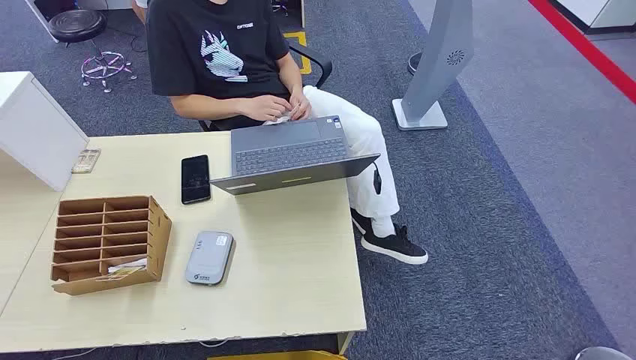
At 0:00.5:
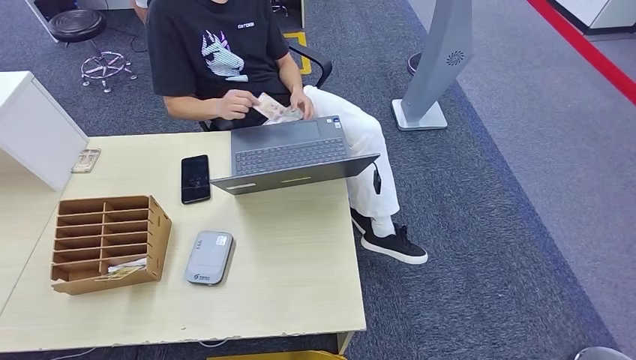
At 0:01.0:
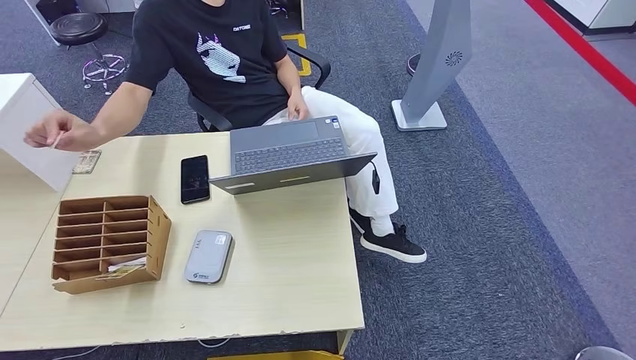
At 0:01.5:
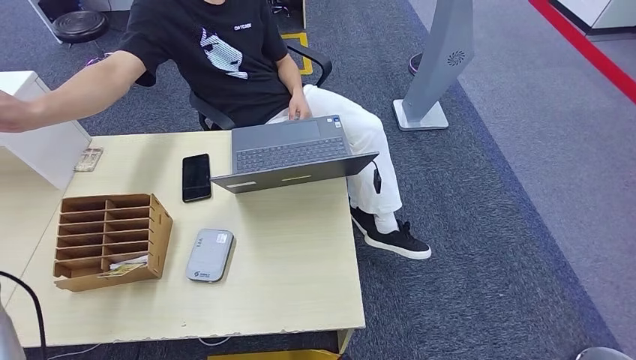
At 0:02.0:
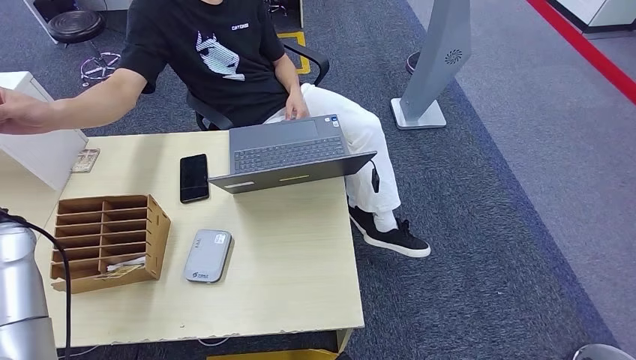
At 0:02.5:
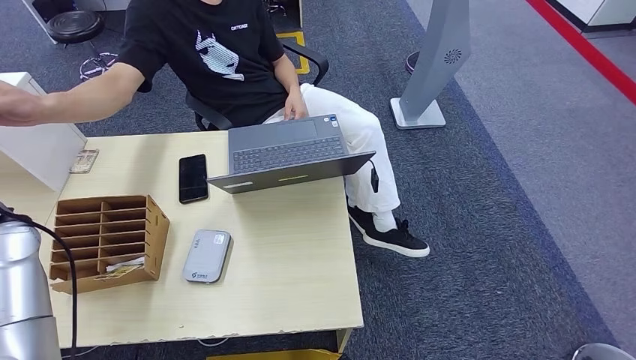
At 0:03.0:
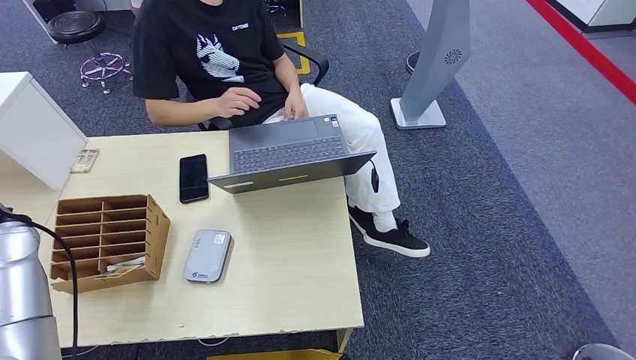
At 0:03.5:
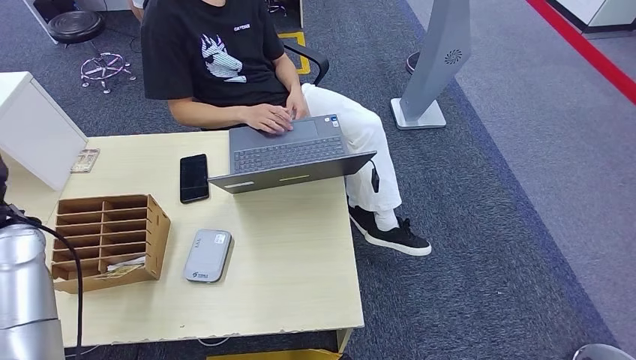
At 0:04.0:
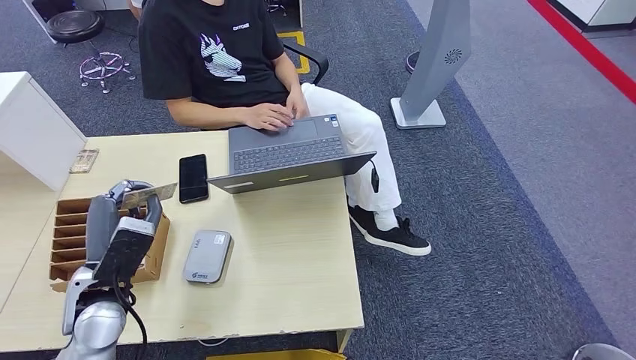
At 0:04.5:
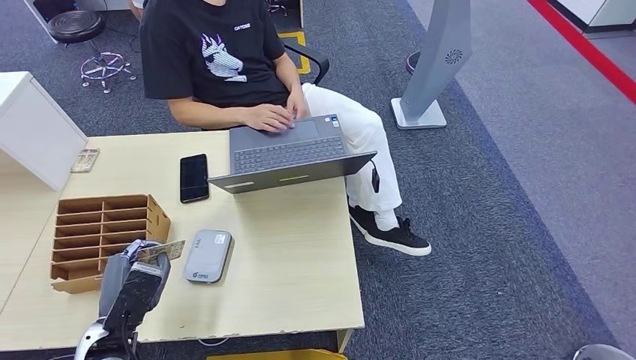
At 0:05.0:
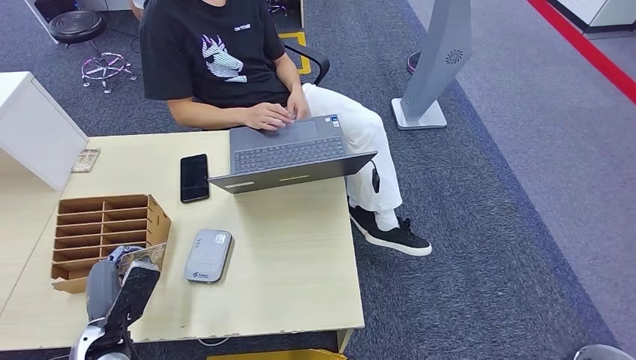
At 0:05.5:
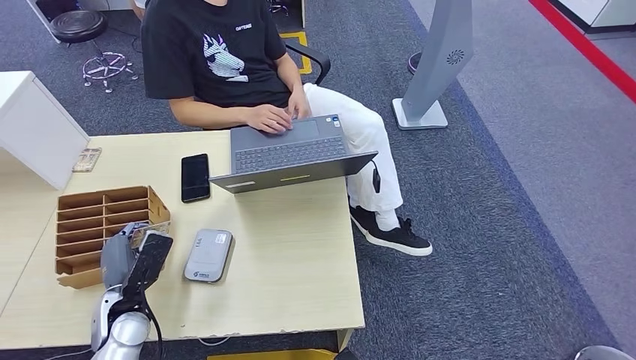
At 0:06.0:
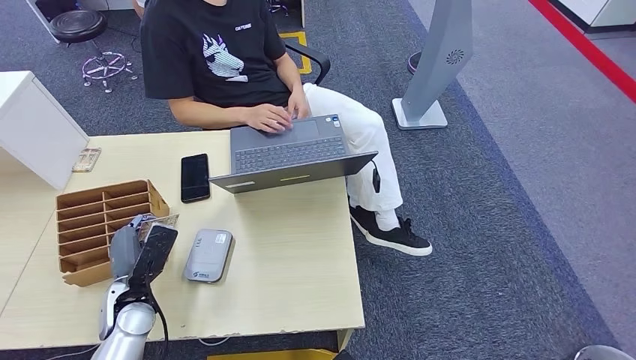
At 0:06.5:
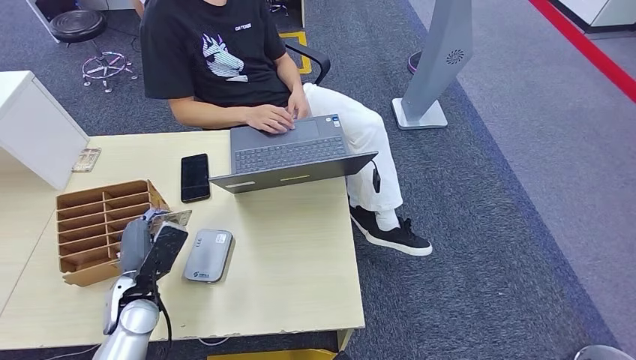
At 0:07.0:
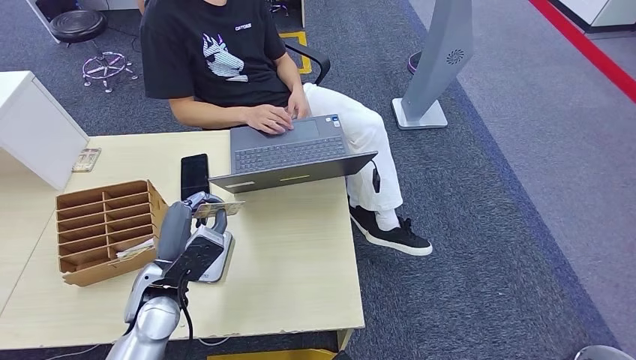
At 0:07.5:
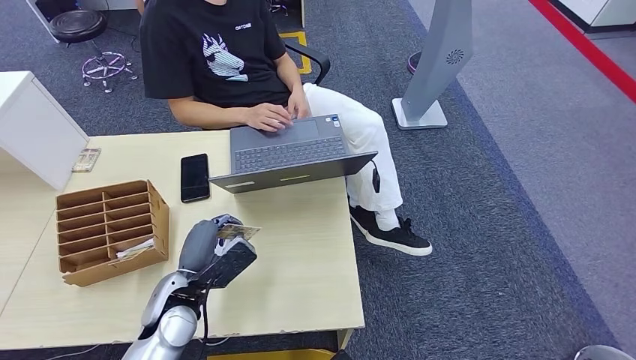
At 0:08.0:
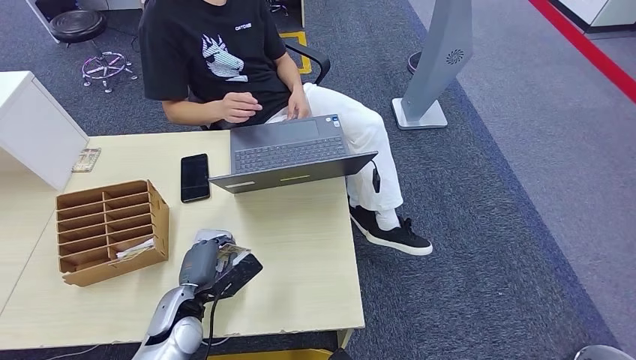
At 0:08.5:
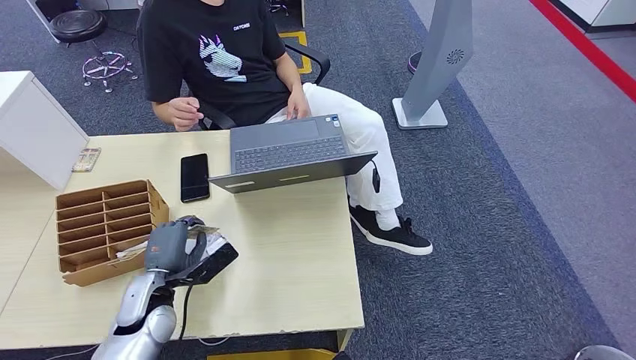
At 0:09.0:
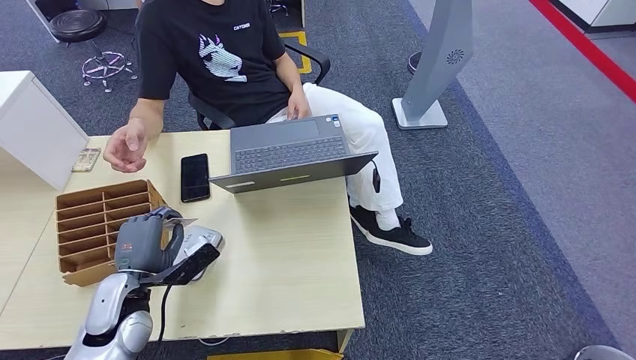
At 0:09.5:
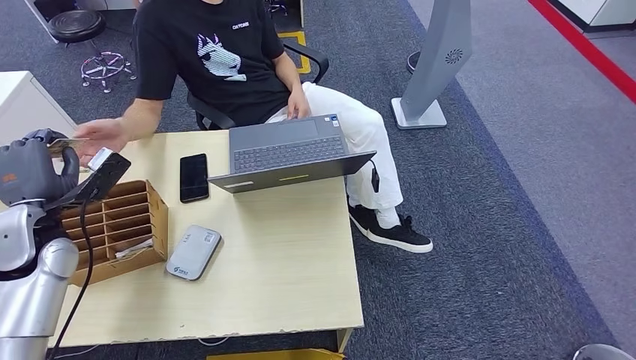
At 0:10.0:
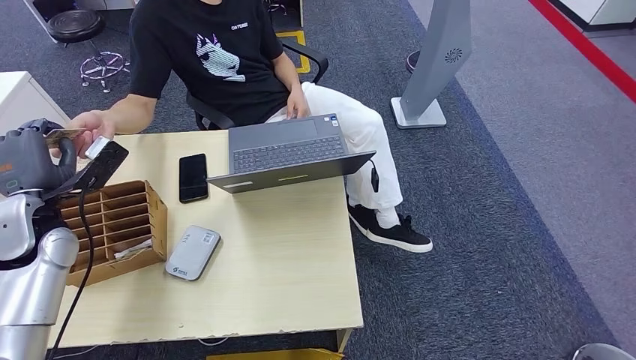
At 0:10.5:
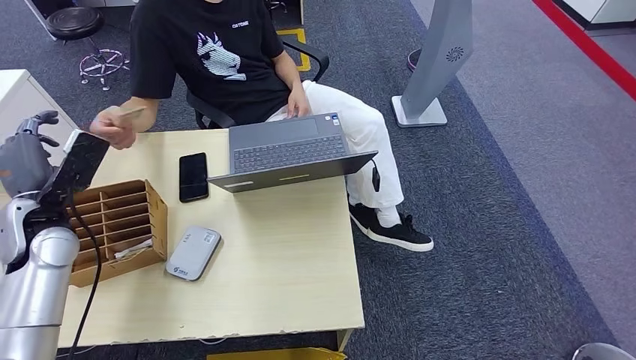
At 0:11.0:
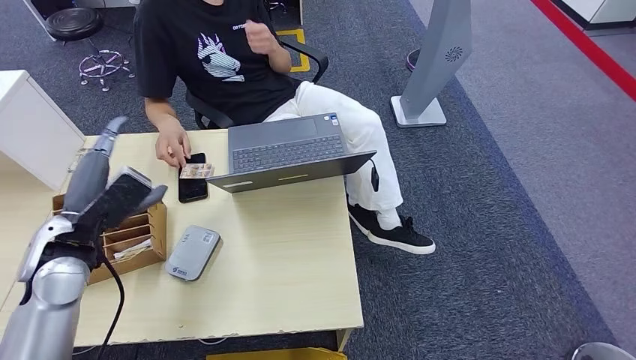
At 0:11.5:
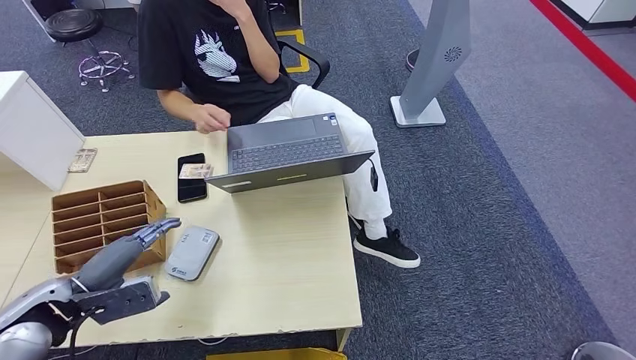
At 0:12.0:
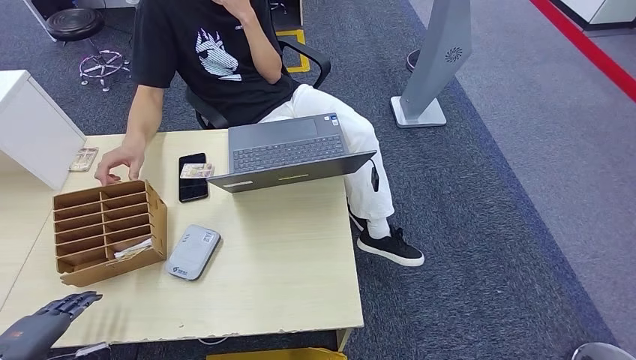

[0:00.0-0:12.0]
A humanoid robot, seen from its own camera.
Step, 0:00.0 to 0:03.0: Take the ID card from the person's hand.
Step, 0:03.5 to 0:08.0: Place the ID card on the card reader.
Step, 0:08.5 to 0:10.5: Hand the ID card to the person.
0:02.0 to 0:04.0: The left hand heads to the right, downward and backward, covering about 20 cm.
0:04.0 to 0:06.0: The left hand heads downward, covering some 10 cm.
0:06.0 to 0:08.0: The left hand is displaced to the right by some 10 cm.
0:10.0 to 0:12.0: The left hand heads backward and to the left, covering approximately 25 cm.

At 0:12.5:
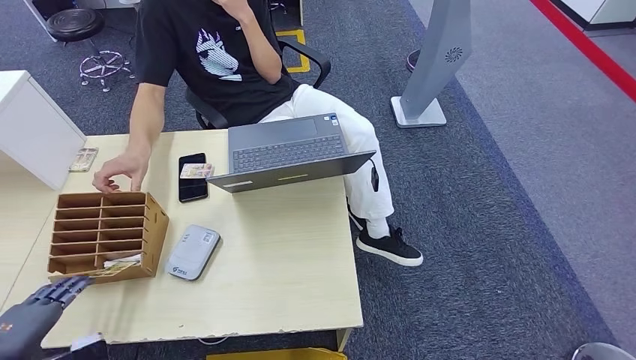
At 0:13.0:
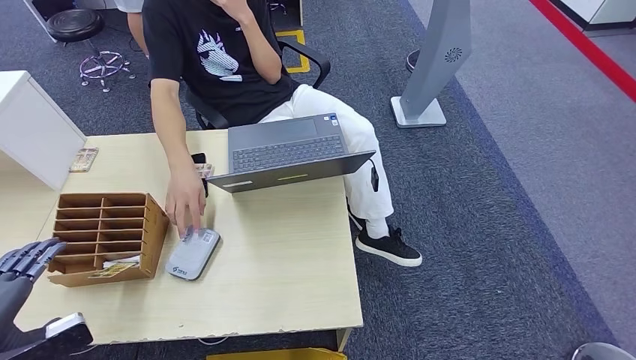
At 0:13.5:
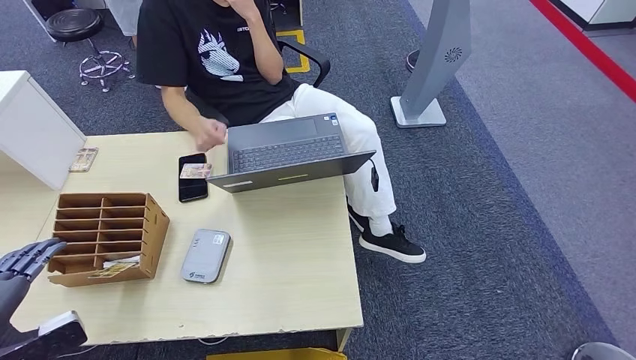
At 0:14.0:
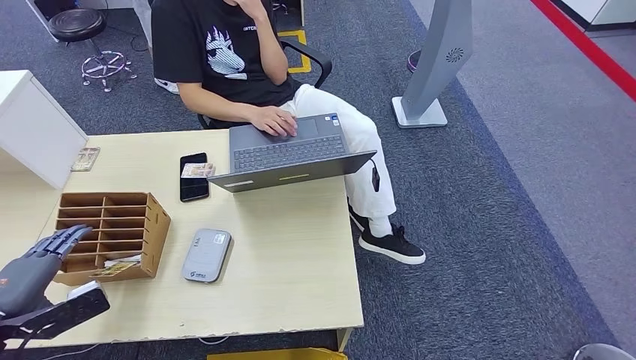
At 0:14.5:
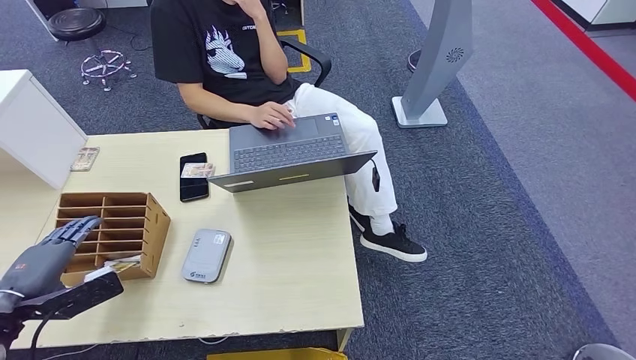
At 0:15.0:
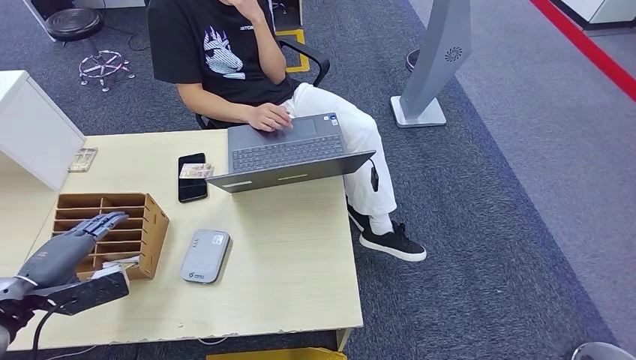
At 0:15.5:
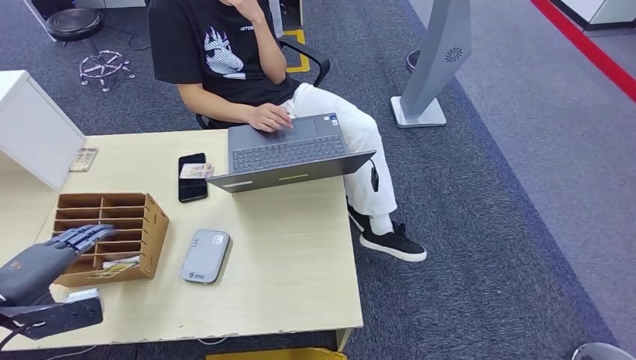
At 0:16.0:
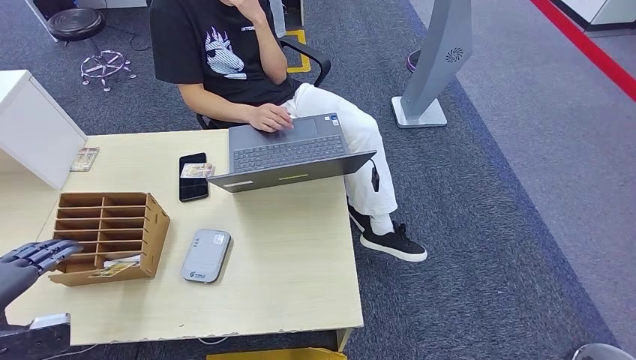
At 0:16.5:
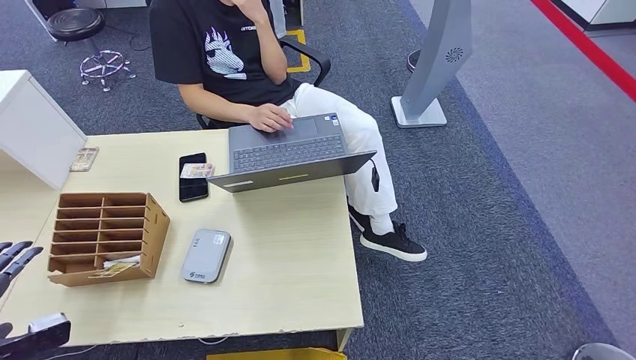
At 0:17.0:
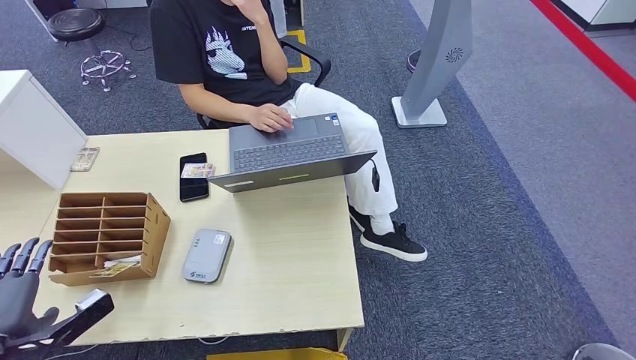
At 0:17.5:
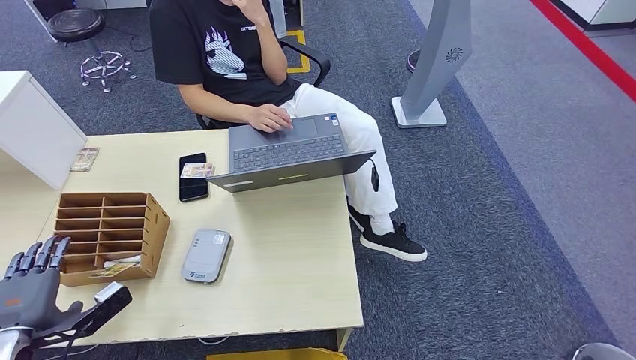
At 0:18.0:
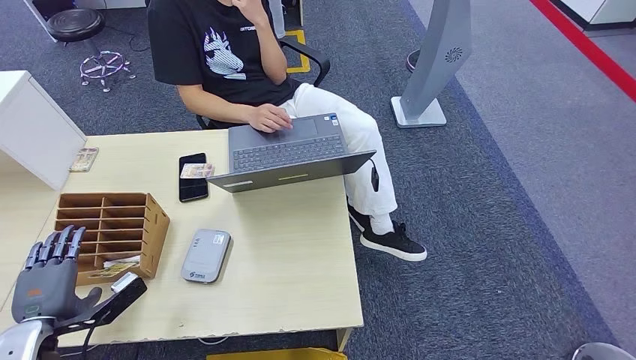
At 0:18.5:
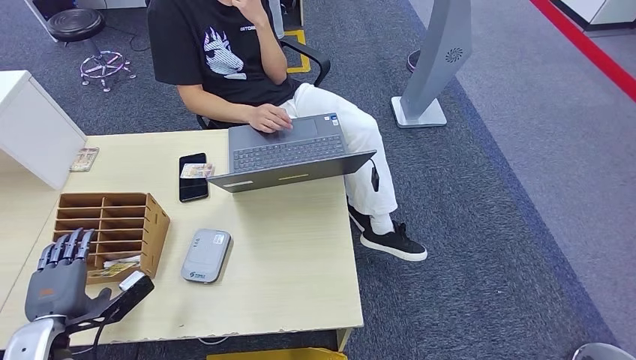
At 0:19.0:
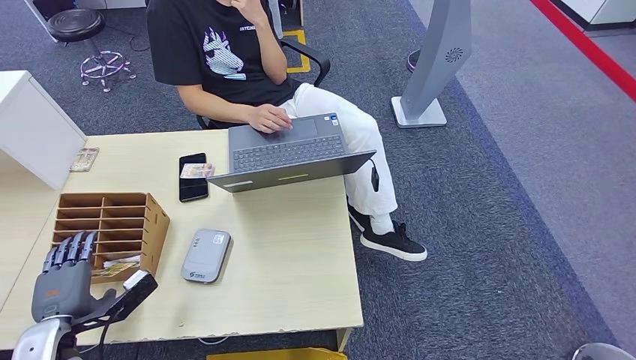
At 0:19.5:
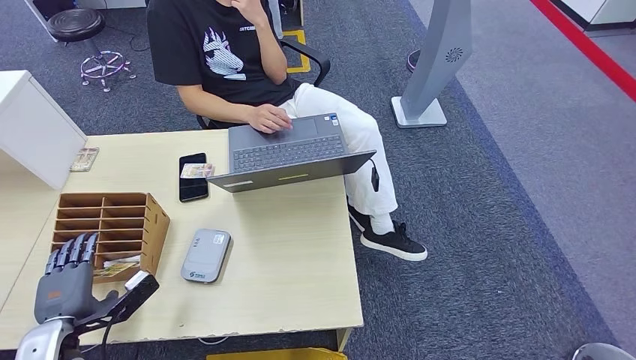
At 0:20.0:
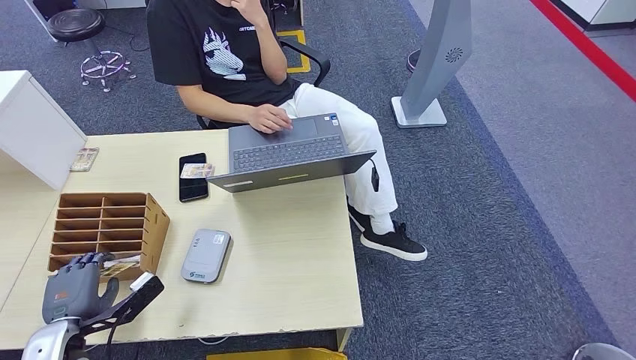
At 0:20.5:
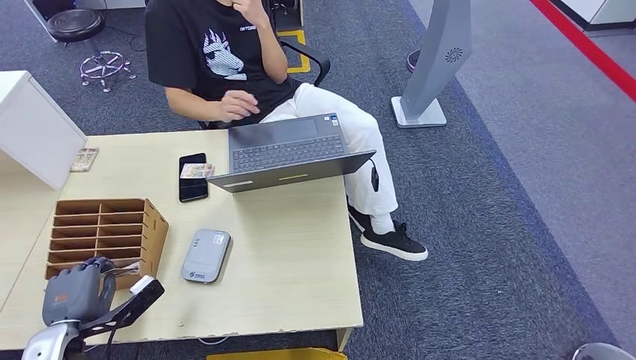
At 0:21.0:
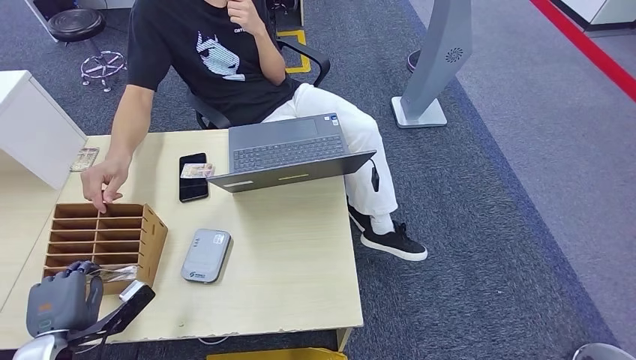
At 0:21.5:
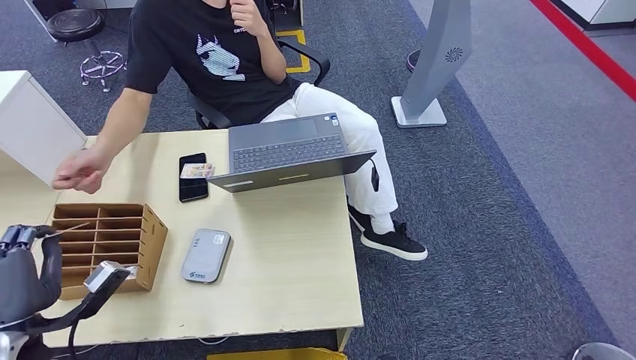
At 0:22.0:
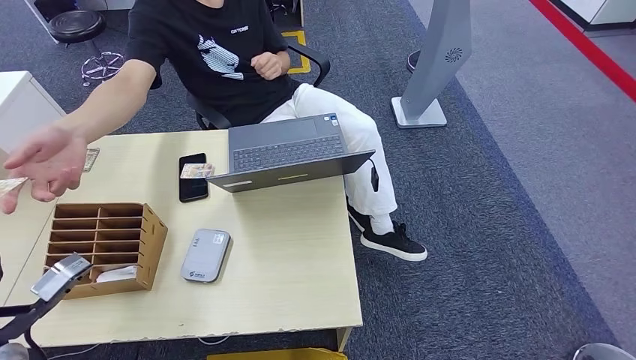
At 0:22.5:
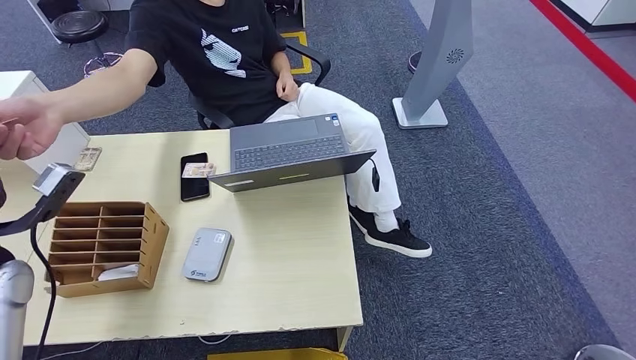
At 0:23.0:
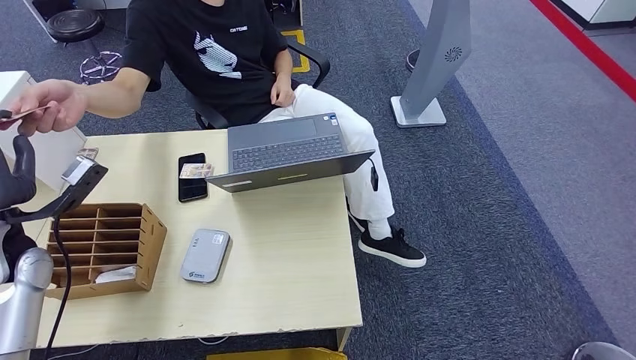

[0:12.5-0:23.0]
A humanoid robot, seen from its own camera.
Step, 0:12.5 to 0:21.0: Pick up the room key from the key card box.
Step, 0:21.5 to 0:23.0: Hand the room key to the person.
0:12.5 to 0:14.5: The left hand moves forward, approximately 10 cm.
0:14.5 to 0:16.5: The left hand shifts some 10 cm backward, upward and to the left.
0:16.5 to 0:19.0: The left hand goes approximately 20 cm downward and to the right.
0:19.0 to 0:21.0: The hands stay close to where they were, moving slightly.
0:21.0 to 0:23.0: The left hand heads upward and forward, covering approximately 20 cm.
